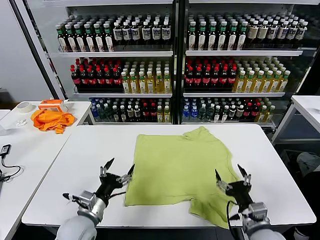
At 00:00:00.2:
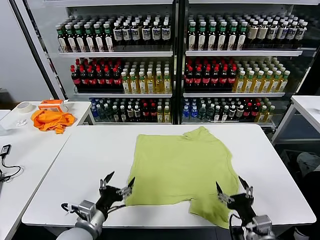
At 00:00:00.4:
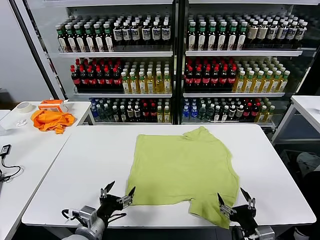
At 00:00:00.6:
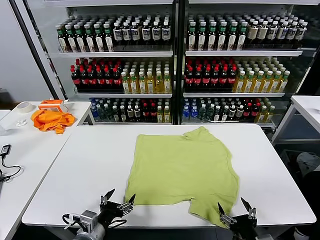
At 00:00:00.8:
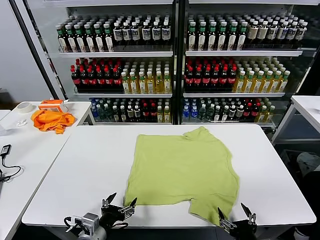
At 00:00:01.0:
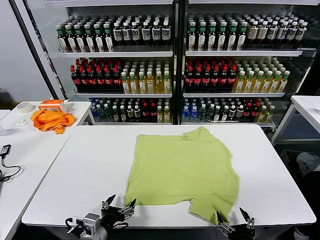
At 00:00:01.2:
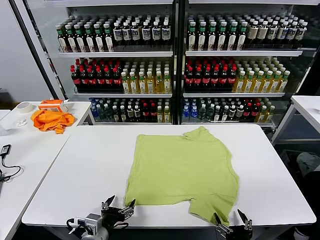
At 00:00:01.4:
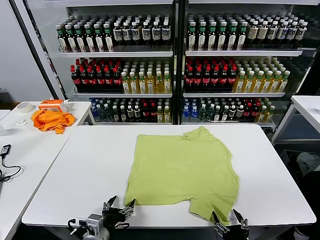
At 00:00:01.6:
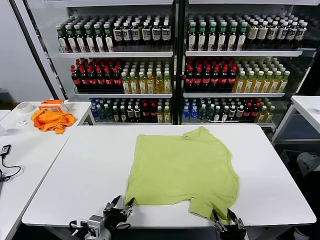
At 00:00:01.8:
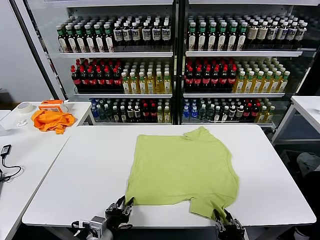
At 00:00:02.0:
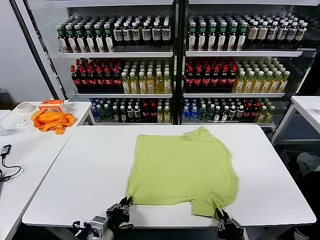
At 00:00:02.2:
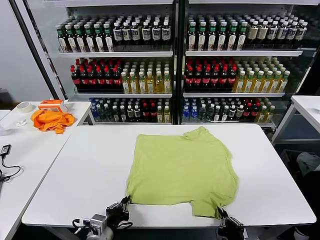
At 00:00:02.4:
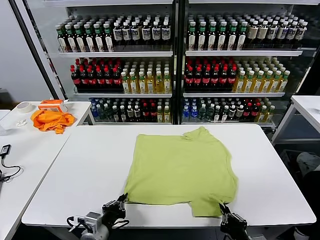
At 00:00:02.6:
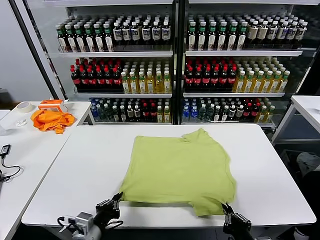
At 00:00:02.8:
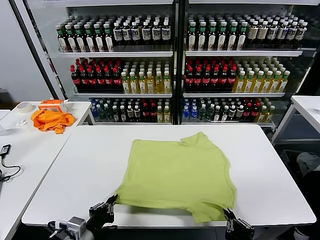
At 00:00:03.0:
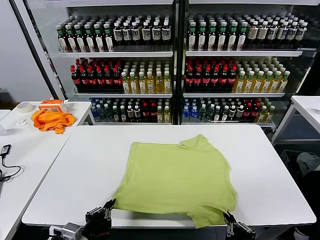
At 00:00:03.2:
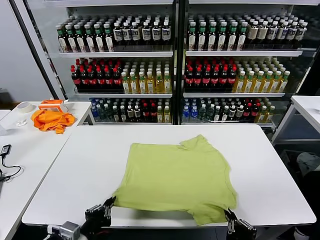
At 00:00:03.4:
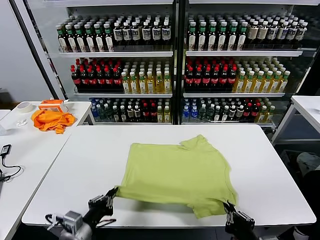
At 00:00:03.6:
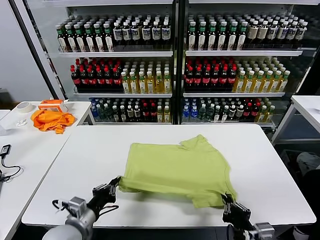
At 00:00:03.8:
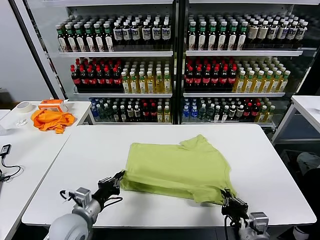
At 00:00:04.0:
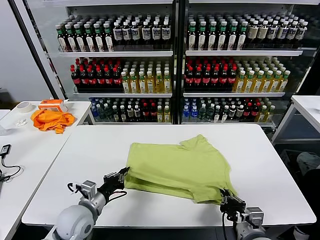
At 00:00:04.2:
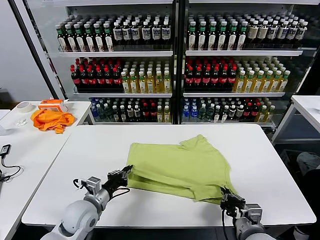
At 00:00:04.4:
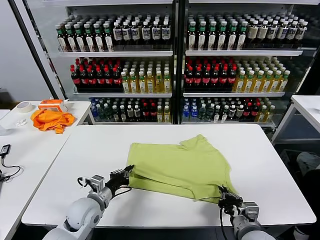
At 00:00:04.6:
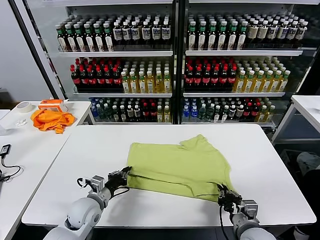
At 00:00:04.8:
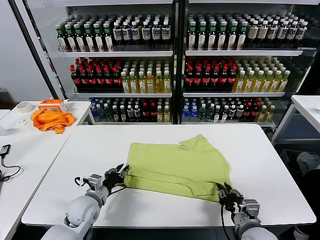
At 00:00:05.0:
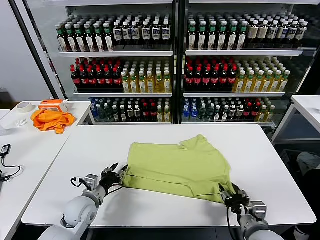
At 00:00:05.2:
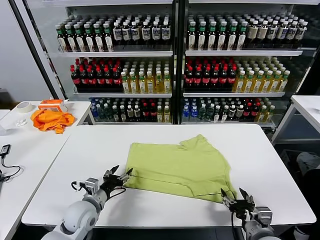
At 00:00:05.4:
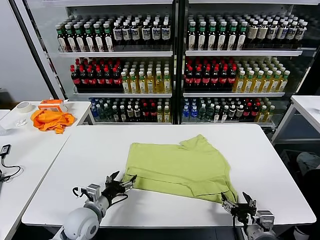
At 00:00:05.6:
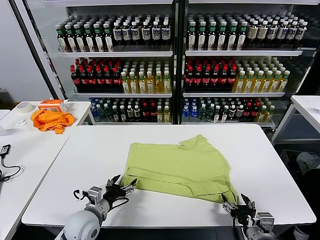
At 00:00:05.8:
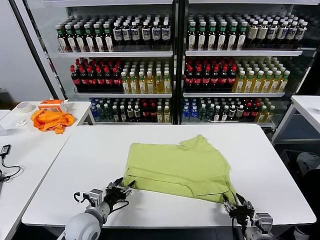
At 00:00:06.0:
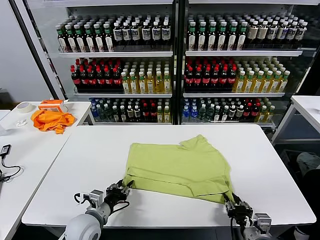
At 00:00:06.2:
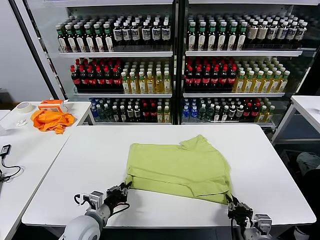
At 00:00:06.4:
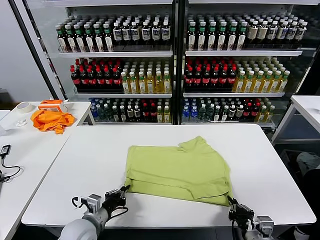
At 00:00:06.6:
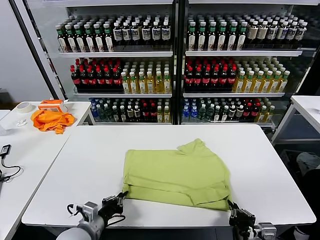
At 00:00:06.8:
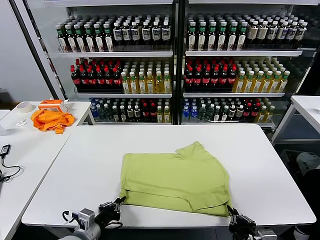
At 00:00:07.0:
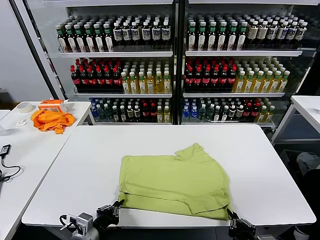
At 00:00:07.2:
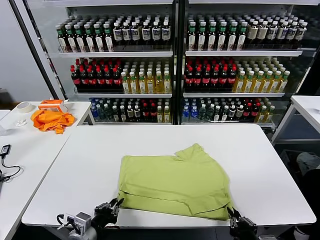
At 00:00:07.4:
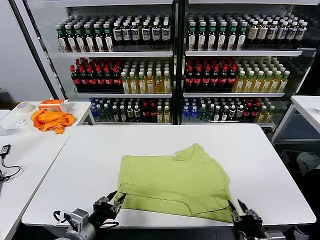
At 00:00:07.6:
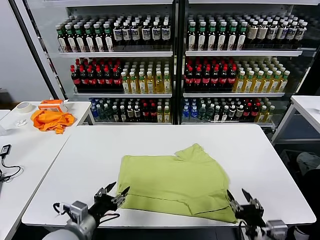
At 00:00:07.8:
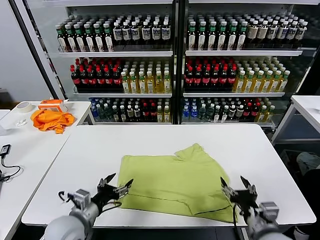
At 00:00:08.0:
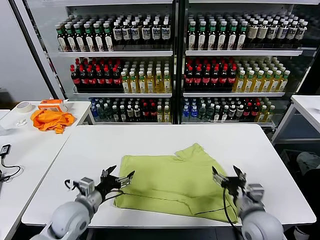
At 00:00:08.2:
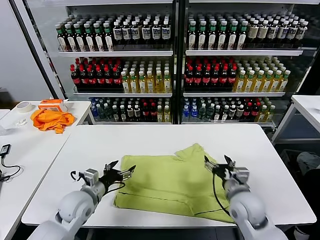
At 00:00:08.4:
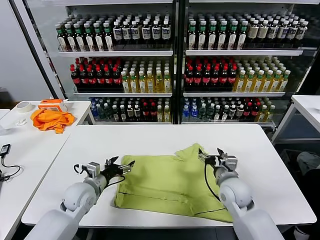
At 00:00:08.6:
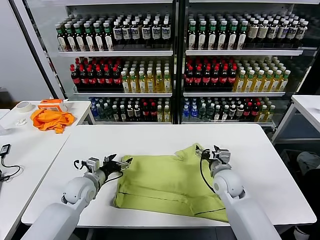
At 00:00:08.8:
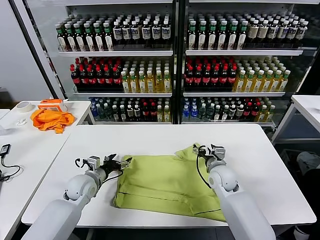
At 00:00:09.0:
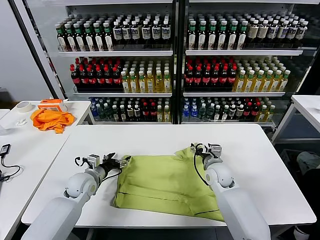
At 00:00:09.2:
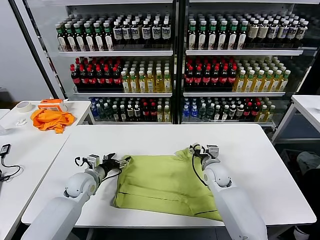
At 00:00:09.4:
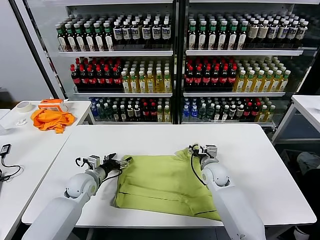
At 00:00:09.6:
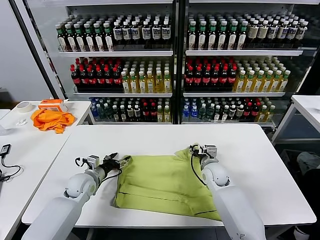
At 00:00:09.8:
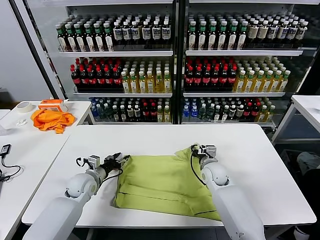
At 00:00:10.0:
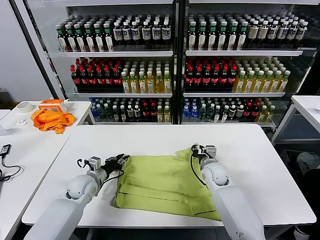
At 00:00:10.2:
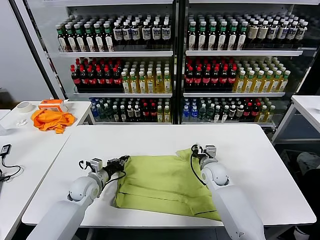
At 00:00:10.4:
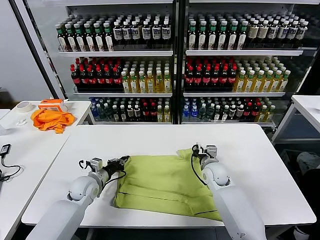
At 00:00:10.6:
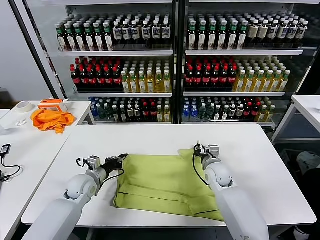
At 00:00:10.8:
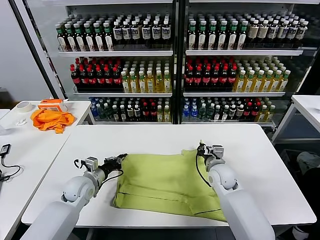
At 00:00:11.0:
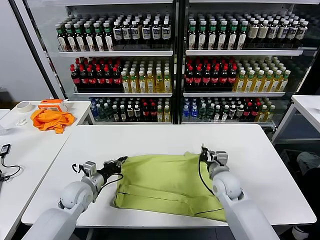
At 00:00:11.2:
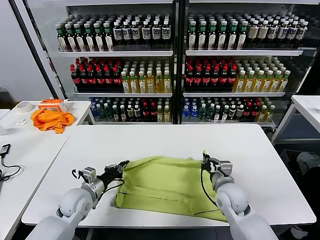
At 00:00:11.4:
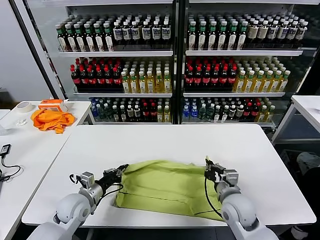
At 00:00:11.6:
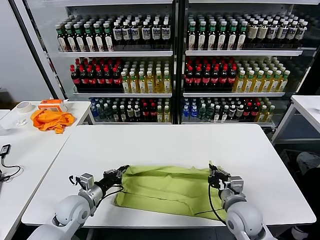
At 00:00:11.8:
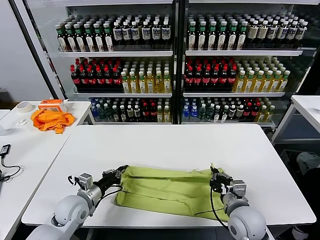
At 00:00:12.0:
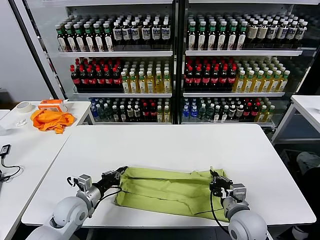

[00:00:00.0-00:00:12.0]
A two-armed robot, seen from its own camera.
Task of the whole recording: fold and organize the clothes.
Step, 00:00:00.0 to 00:00:02.2: use both grippers simultaneously to clamp the lower edge of the clothing fabric.
Step, 00:00:02.4 to 00:00:05.0: use both grippers to drag the lower edge of the fabric forward and fold it over the upper edge.
Step, 00:00:05.2 to 00:00:07.2: Drag the clothes downward with both gripper.
Step, 00:00:07.6 to 00:00:10.2: use both grippers simultaneously to clamp the upper edge of the clothing fabric.
00:00:01.6 to 00:00:03.0: Both grippers move upward, approximately 10 cm. The left gripper closes. The right gripper closes.
00:00:03.0 to 00:00:04.4: The left gripper travels forward by approximately 15 cm; the right gripper moves forward and downward, about 15 cm.
00:00:04.4 to 00:00:06.0: The right gripper opens, then closes once more. Meanwhile the left gripper shifts by some 5 cm, and opens up.
00:00:06.0 to 00:00:07.6: The right gripper heads upward, covering roughly 5 cm, and opens, while the left gripper goes about 10 cm upward and backward, and closes, then opens again.
00:00:07.6 to 00:00:09.0: Both grippers move forward, about 25 cm.
00:00:09.0 to 00:00:10.4: The left gripper closes. Meanwhile the right gripper closes.
00:00:10.4 to 00:00:12.0: The right gripper shifts some 20 cm backward; the left gripper goes some 10 cm backward.

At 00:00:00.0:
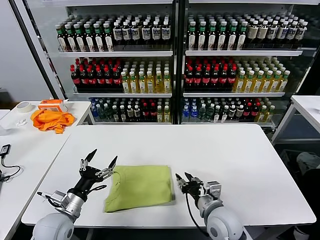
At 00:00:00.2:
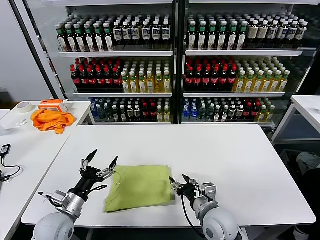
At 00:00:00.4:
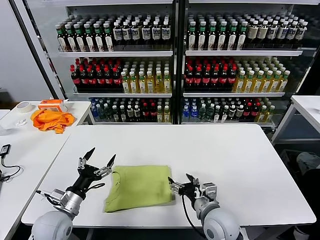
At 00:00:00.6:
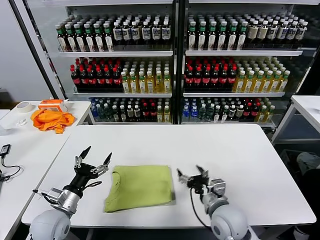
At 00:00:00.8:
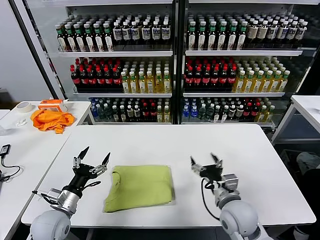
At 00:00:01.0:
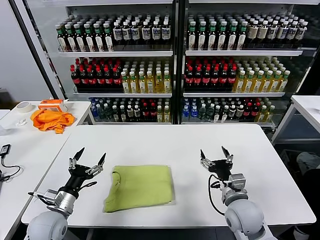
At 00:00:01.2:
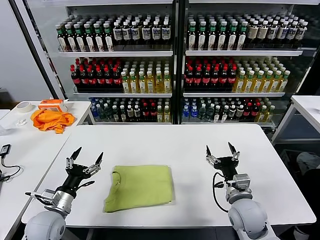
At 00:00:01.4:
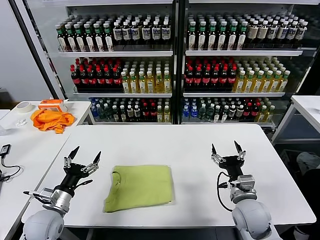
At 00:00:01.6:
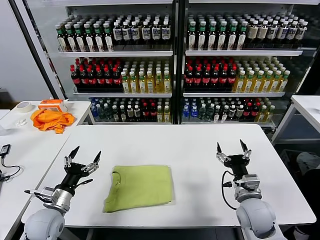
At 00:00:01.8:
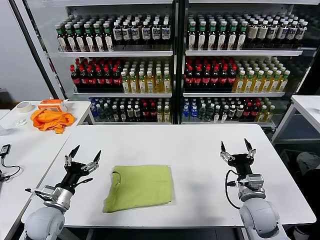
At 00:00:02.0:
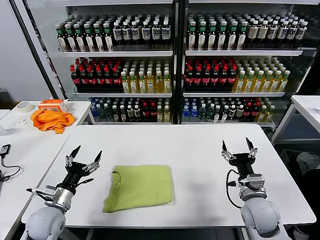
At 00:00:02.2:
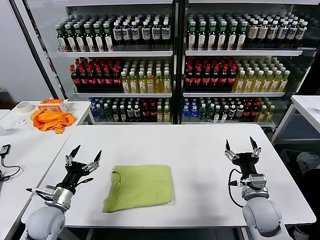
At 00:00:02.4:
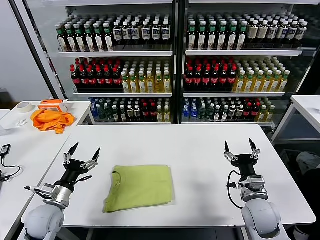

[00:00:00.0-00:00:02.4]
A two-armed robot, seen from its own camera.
Task of the whole recording: fold and organize the clothes.
00:00:00.0 to 00:00:01.2: The right gripper is displaced to the right by roughly 5 cm, and opens.
00:00:01.2 to 00:00:02.4: The right gripper moves about 5 cm.
